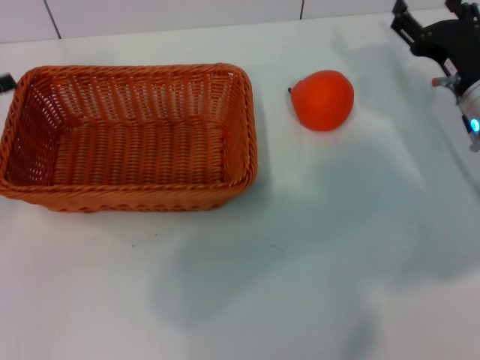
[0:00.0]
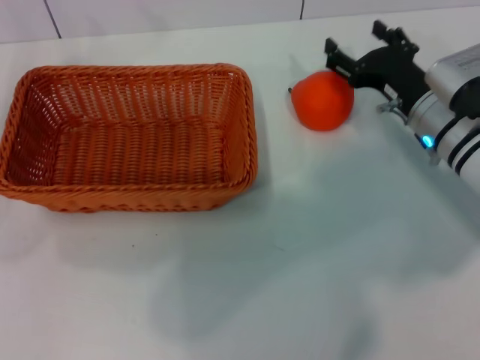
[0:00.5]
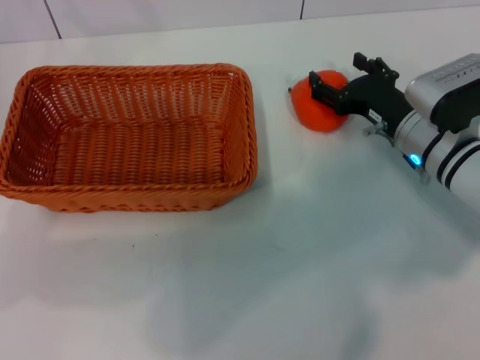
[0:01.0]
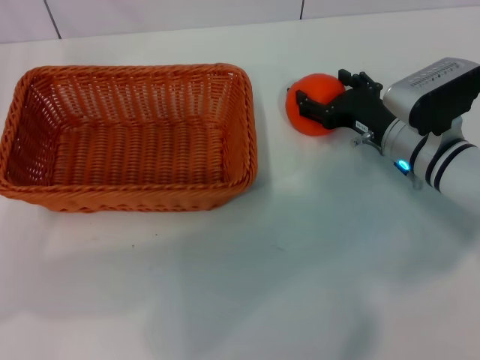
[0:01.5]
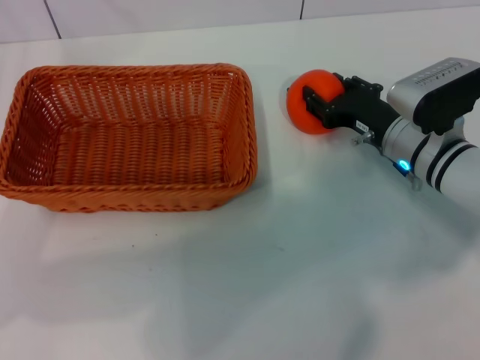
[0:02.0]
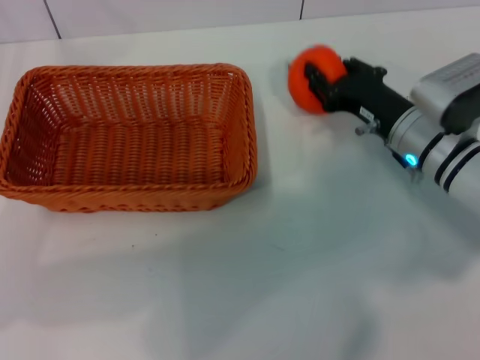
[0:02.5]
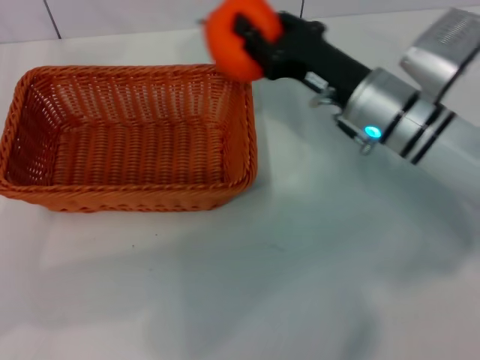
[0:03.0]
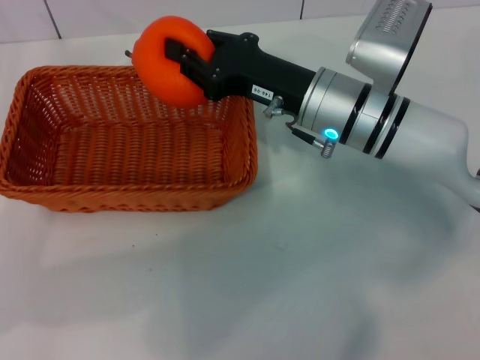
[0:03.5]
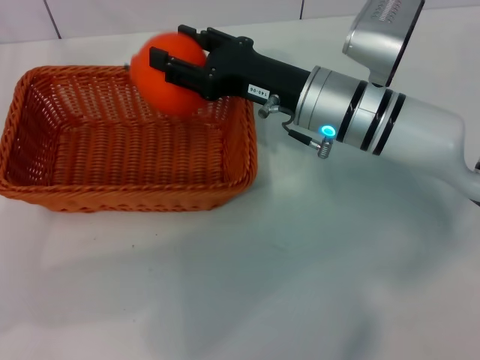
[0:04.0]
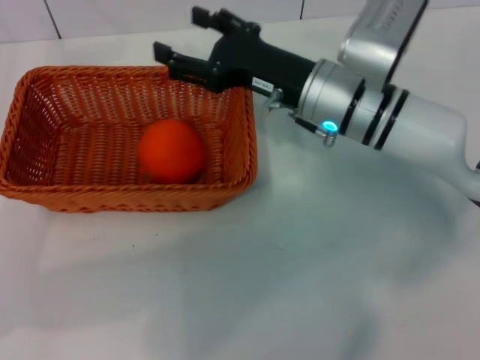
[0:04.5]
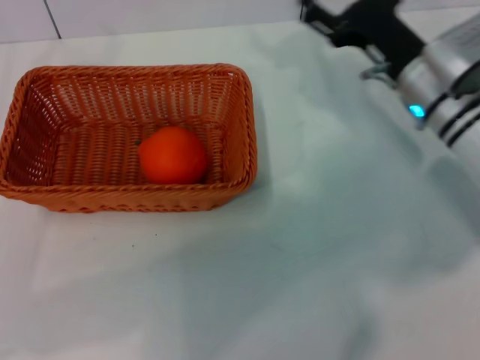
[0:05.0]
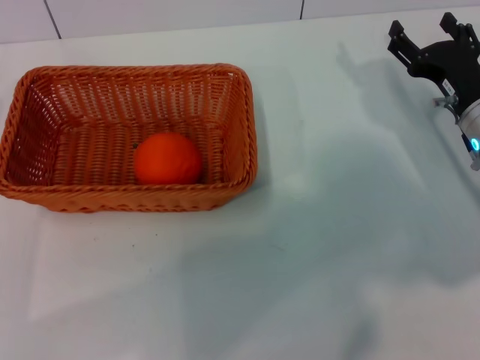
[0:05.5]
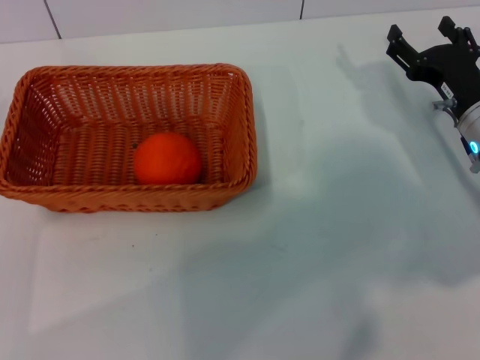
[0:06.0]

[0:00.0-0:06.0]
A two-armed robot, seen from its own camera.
Task of the whole recording: the left gripper pick up the yellow basket and place it horizontally in the middle of the table, the right gripper pick up the orange and place it into the yellow basket.
Step, 0:00.0 to 0:02.0: Pick up the orange with the right gripper.
Step, 0:03.0 to 0:04.0: Place the orange into the light basket with the right gripper.
0:00.0 to 0:02.0: The right gripper heads to the left, covering some 5 cm. The left gripper changes place by some 5 cm.
0:02.0 to 0:04.0: The right gripper heads to the left and upward, covering about 10 cm, and closes its fingers.
0:04.0 to 0:06.0: The left gripper is displaced downward by roughly 5 cm. Meanwhile the right gripper shifts approximately 15 cm to the right, and opens.

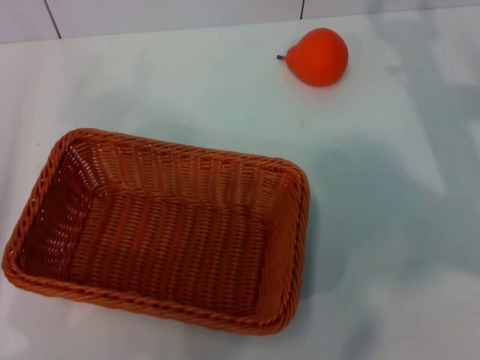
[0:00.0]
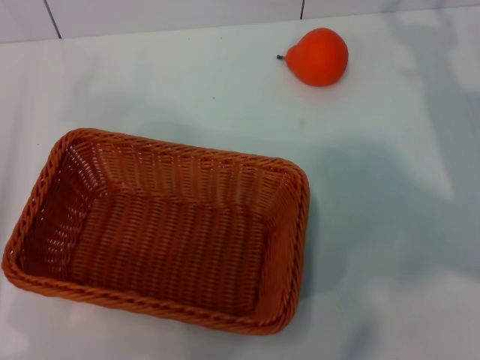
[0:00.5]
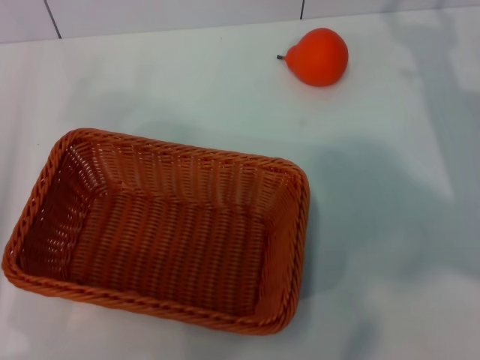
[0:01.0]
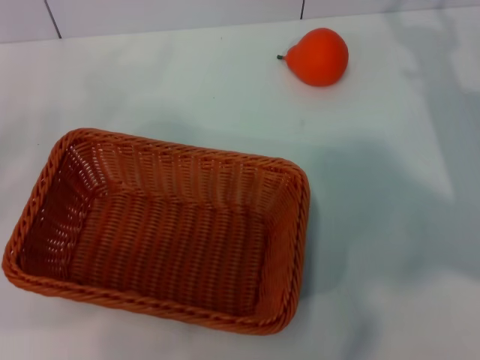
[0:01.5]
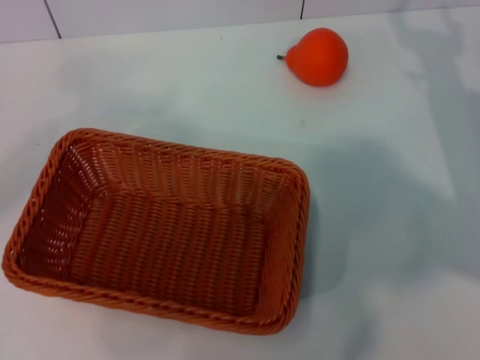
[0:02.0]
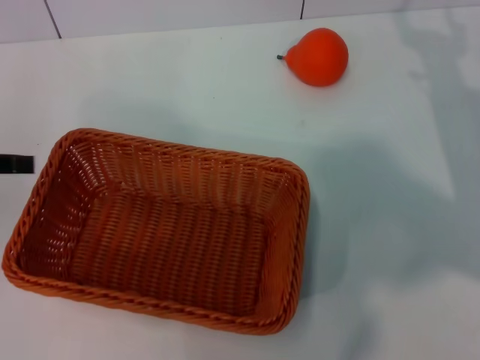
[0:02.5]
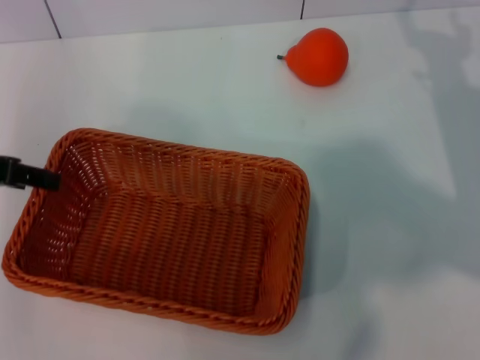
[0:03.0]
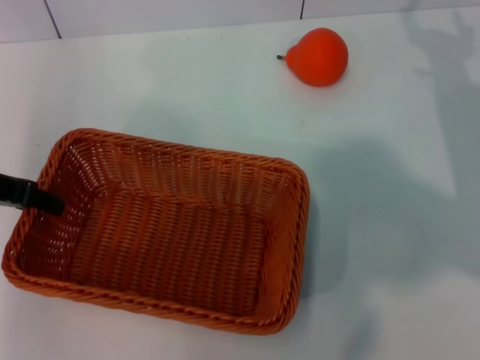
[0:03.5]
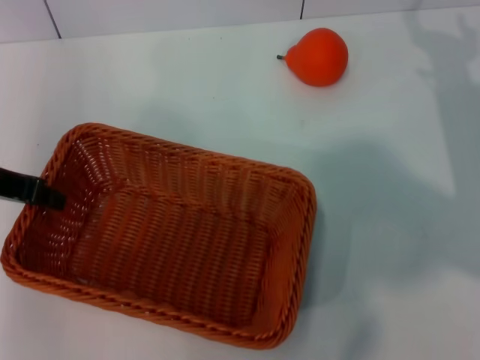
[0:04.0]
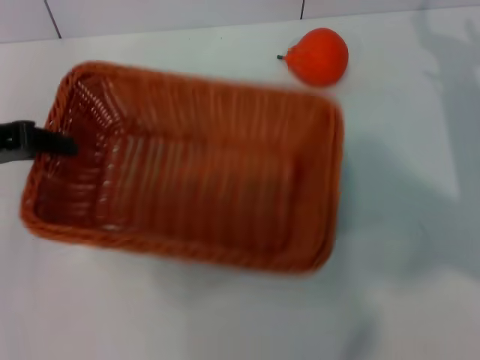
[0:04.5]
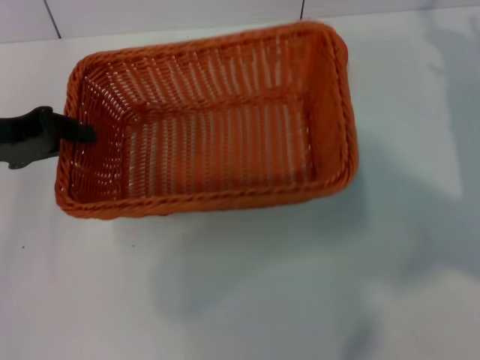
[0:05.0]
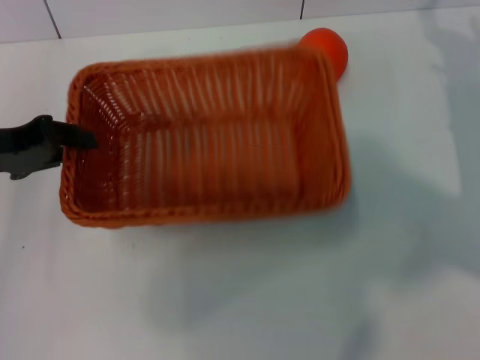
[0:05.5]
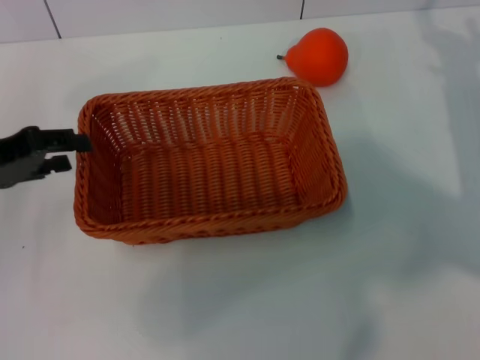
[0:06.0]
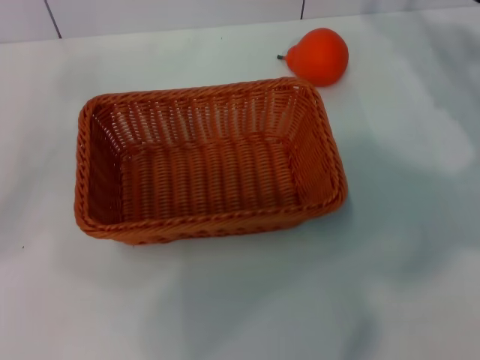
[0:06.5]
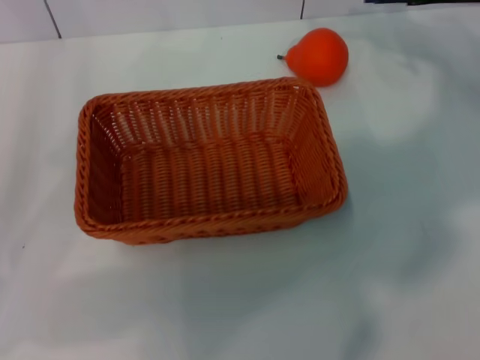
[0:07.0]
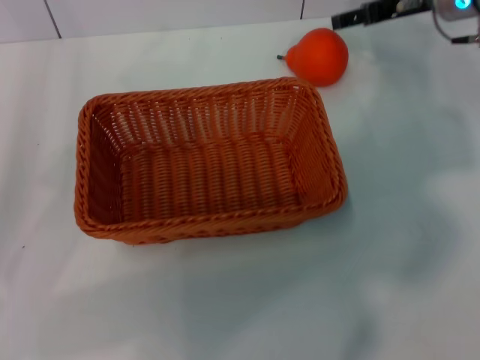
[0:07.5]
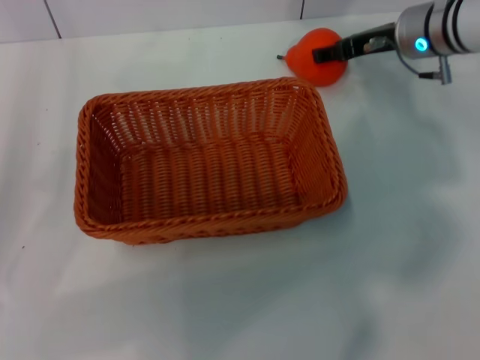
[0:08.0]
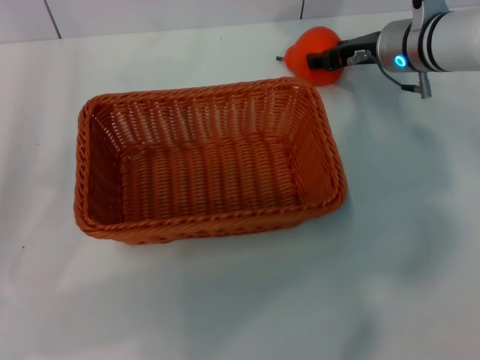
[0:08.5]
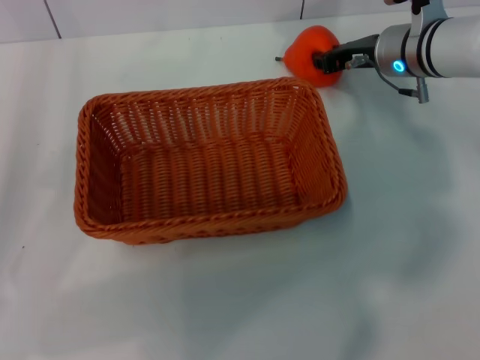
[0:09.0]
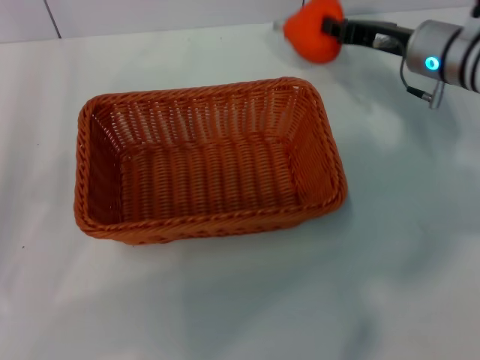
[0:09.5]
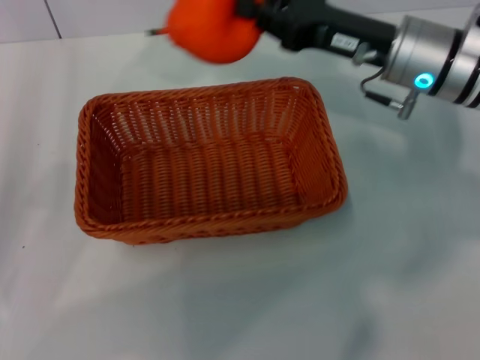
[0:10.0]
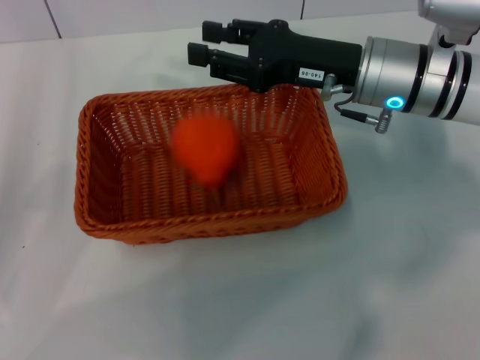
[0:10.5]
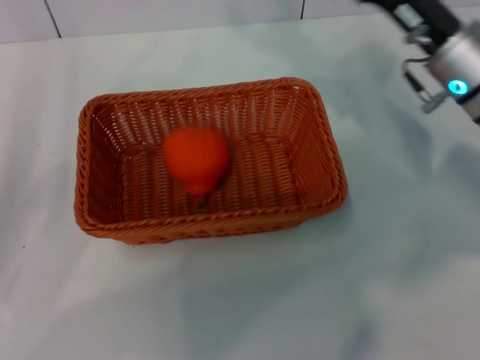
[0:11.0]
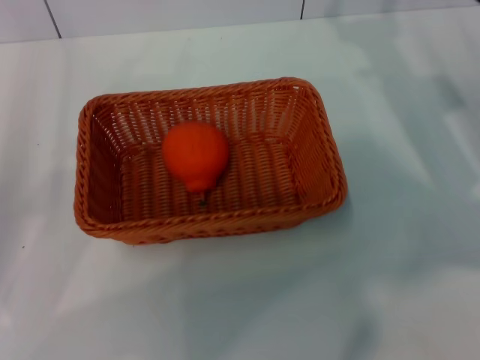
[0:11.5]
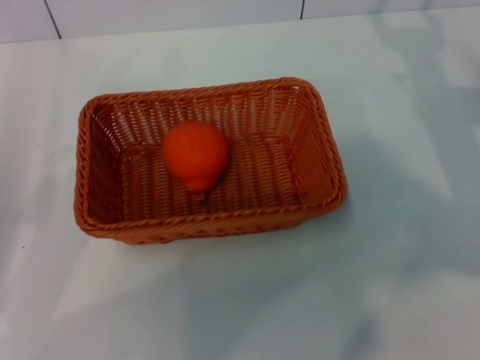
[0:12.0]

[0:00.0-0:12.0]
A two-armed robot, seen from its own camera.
Task of the whole recording: the left gripper pick up the yellow basket and place it horizontally in the middle of the table, the right gripper pick up the orange and place it into the yellow basket.
Step, 0:00.0 to 0:04.0: Pick up the light basket with the left gripper.
Step, 0:04.5 to 0:06.0: Place the light basket in the center of view with the left gripper.
Step, 0:06.5 to 0:09.0: Pick up the orange with the right gripper.
Step, 0:09.5 to 0:10.5: Place the orange into the light basket with the right gripper.
0:00.0 to 0:02.0: The left gripper shifts approximately 15 cm upward, to the left and forward.
0:02.0 to 0:04.0: The left gripper goes about 10 cm to the right, and closes its fingers.
0:04.0 to 0:06.0: The left gripper opens its fingers.
0:06.0 to 0:08.0: The right gripper is displaced forward, to the left and upward by approximately 15 cm. The left gripper shifts some 5 cm backward.
0:08.0 to 0:10.0: The right gripper goes about 10 cm backward, and closes up.
0:10.0 to 0:12.0: The right gripper goes approximately 15 cm to the right, downward and backward, and opens its fingers.
